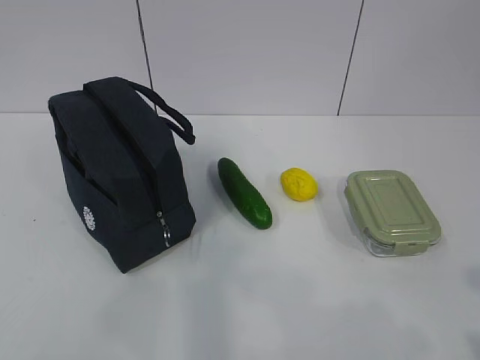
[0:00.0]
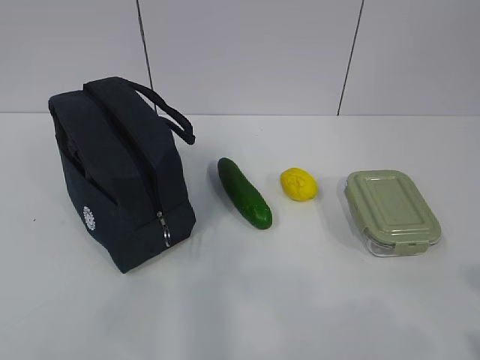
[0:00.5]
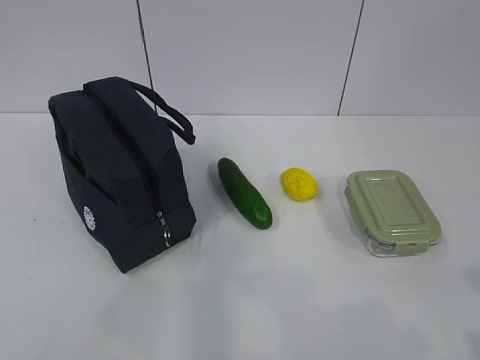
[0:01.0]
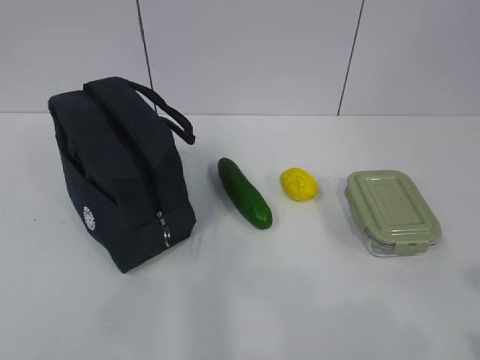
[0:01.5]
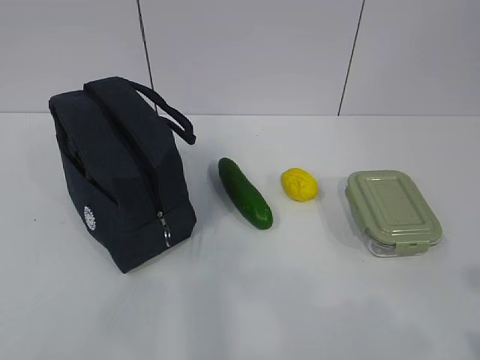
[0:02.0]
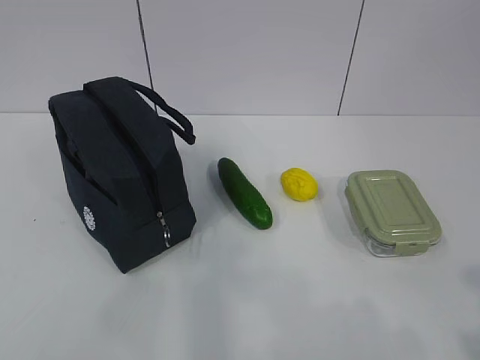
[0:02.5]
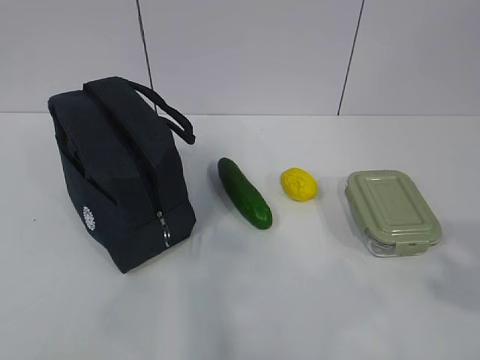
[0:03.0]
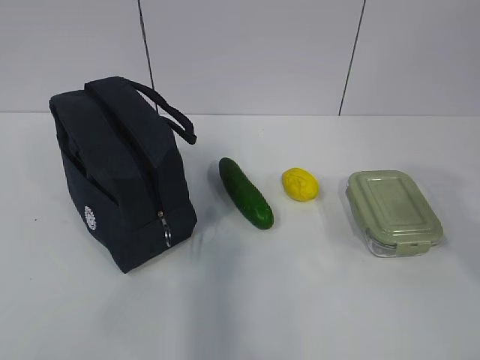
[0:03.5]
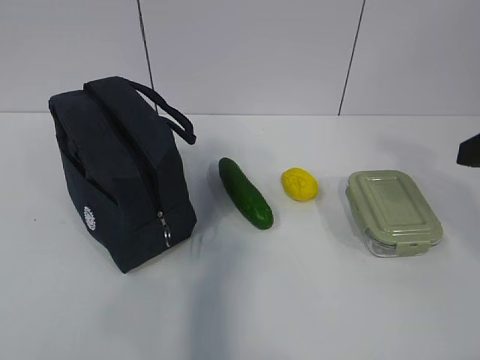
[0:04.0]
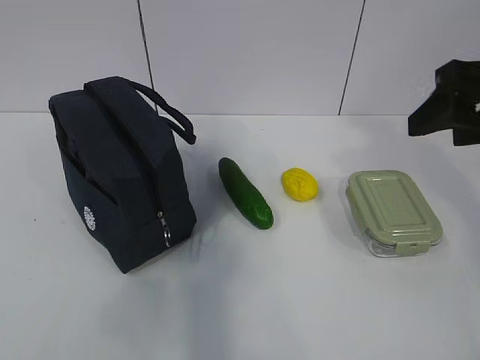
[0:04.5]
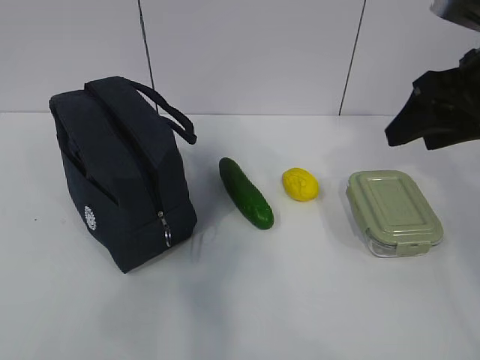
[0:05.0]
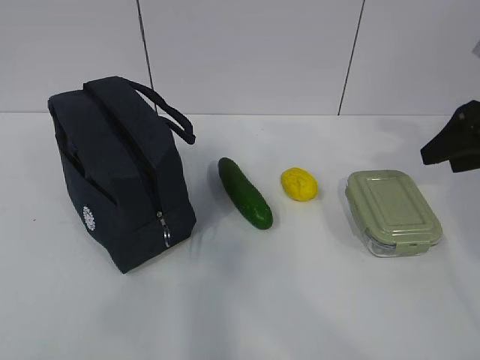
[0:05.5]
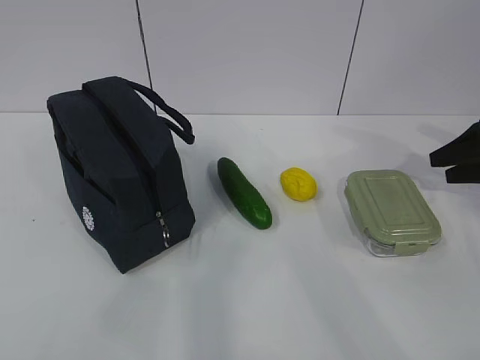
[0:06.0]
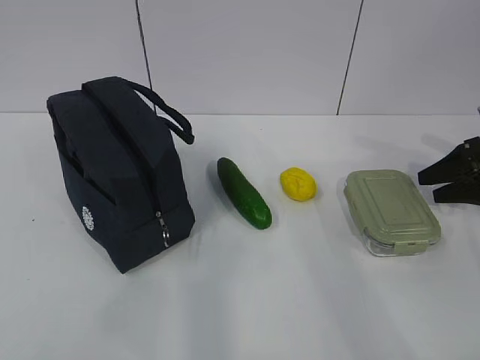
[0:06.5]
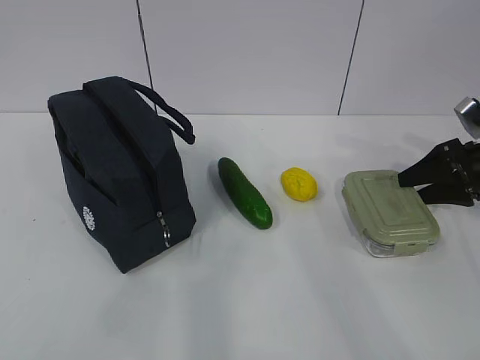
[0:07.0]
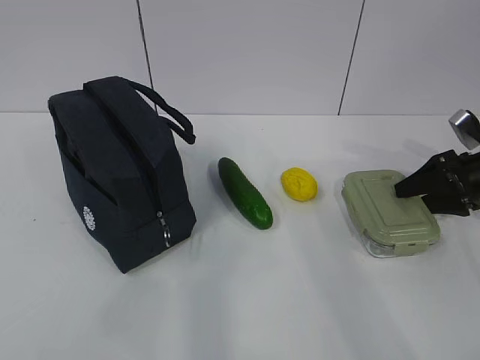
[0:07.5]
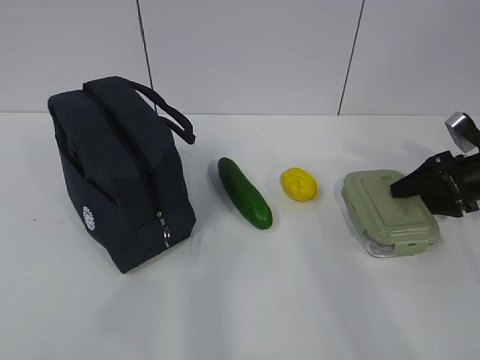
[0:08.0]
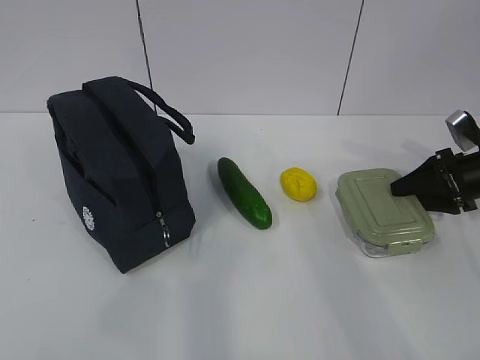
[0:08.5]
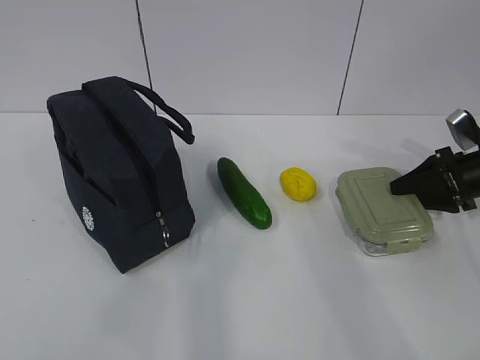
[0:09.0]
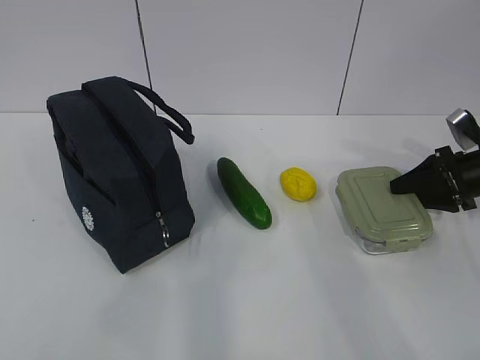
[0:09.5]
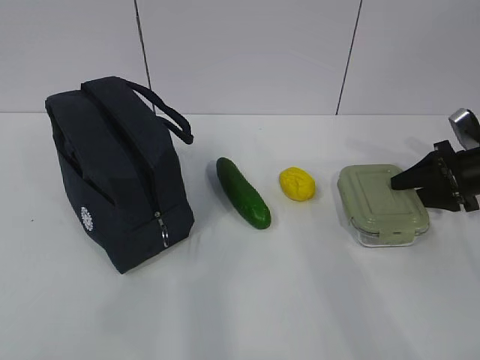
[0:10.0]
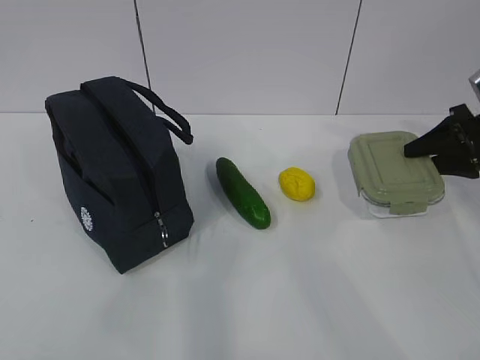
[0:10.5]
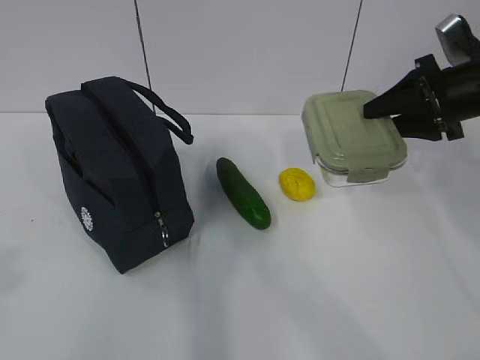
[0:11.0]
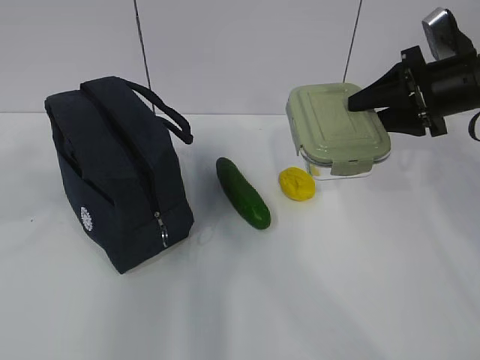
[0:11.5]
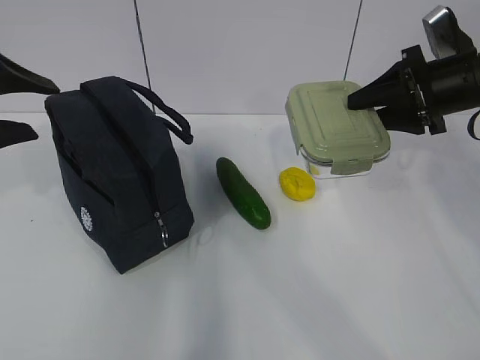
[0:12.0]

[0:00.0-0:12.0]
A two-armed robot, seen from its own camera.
Step, 0:00.0 to 0:08.0: Grab the lunch box with your right hand.
0:02.0 to 0:04.0: The right gripper is displaced forward by about 20 cm, and opens up.
0:04.0 to 0:06.0: The right gripper shifts some 25 cm forward, to the right and downward.
0:06.0 to 0:08.0: The right gripper travels downward by some 5 cm.
0:08.0 to 0:10.0: The grippers stay close to where they were, moving slightly.
0:10.0 to 0:12.0: The left gripper moves forward, about 25 cm, while the right gripper is displaced upward and to the left by roughly 15 cm.

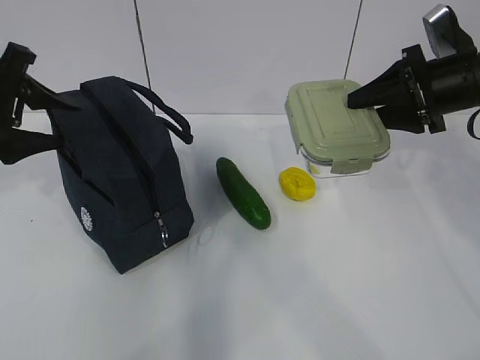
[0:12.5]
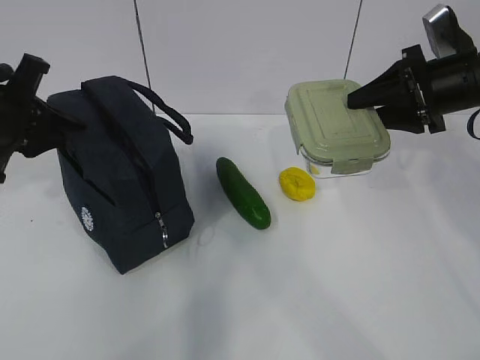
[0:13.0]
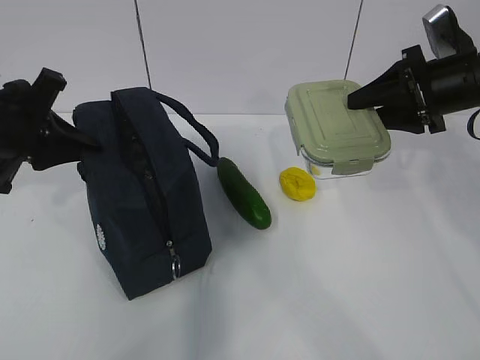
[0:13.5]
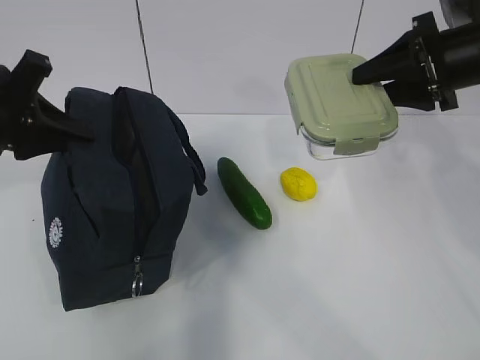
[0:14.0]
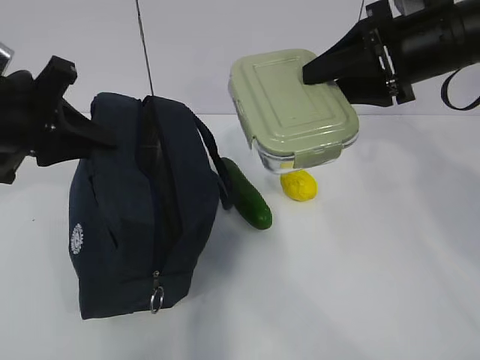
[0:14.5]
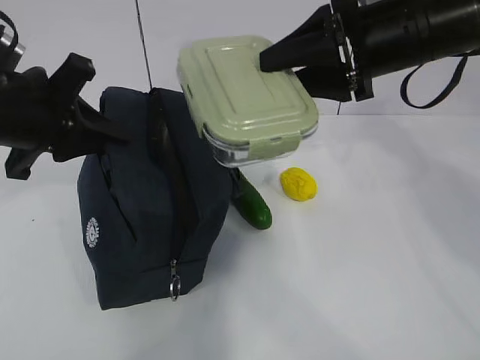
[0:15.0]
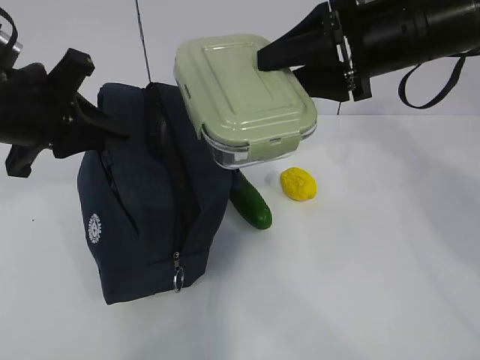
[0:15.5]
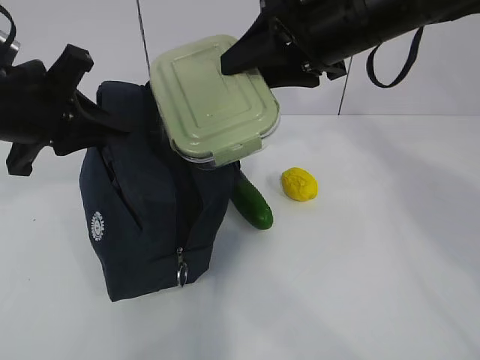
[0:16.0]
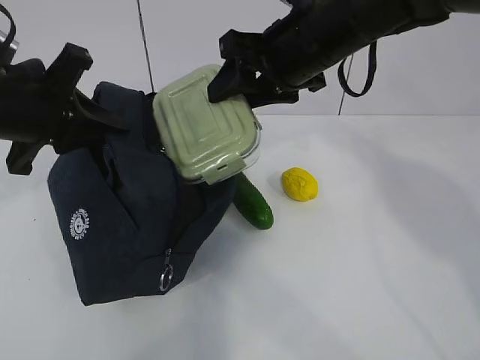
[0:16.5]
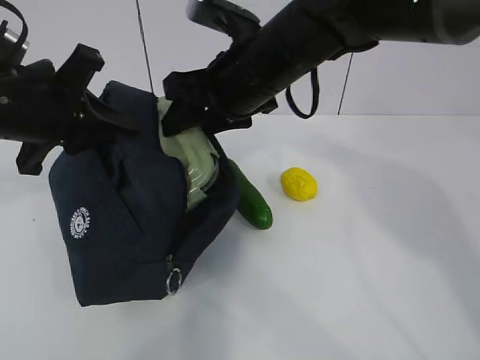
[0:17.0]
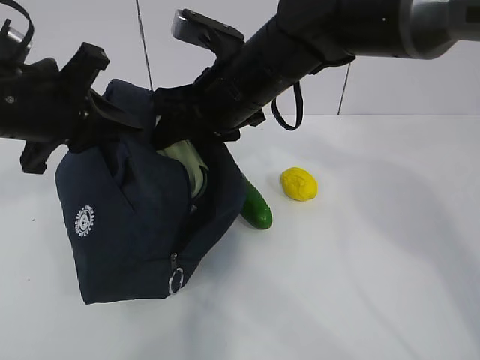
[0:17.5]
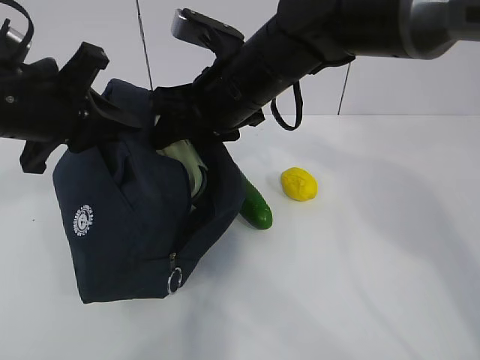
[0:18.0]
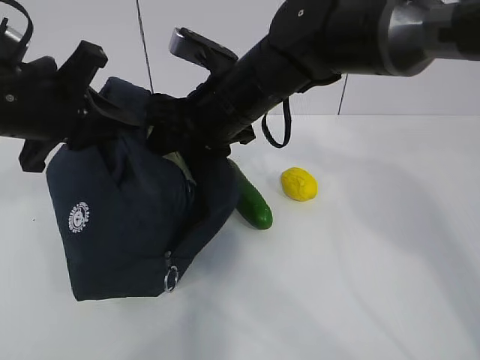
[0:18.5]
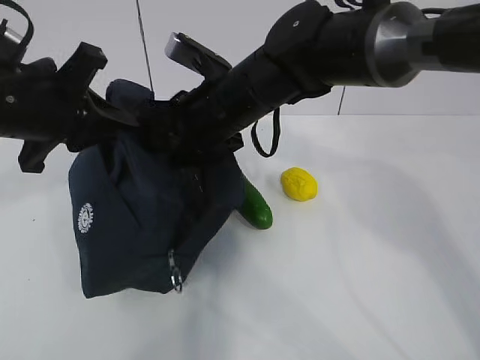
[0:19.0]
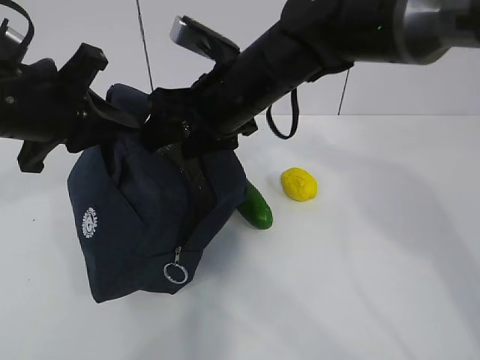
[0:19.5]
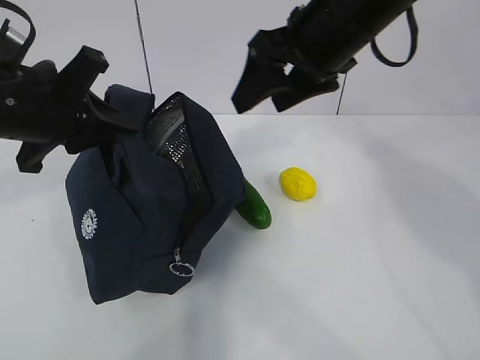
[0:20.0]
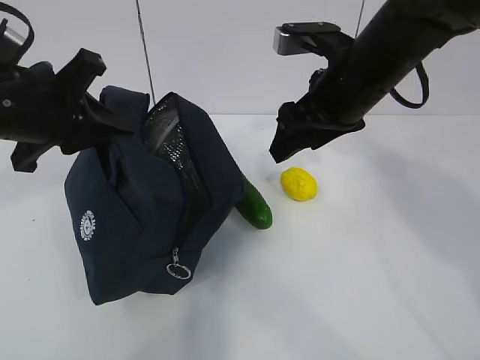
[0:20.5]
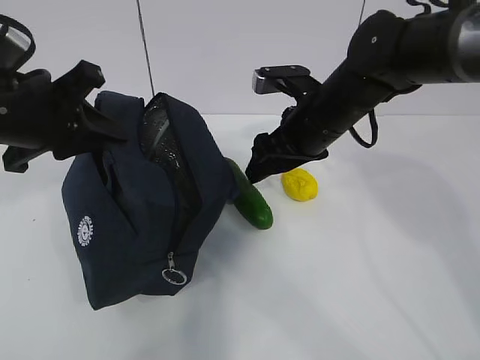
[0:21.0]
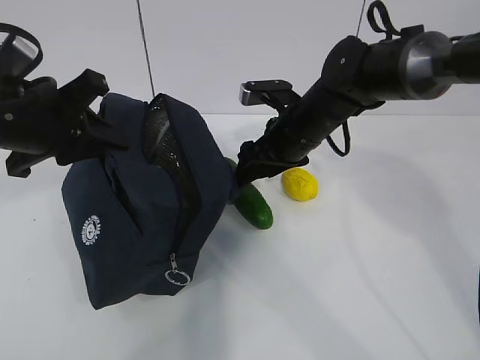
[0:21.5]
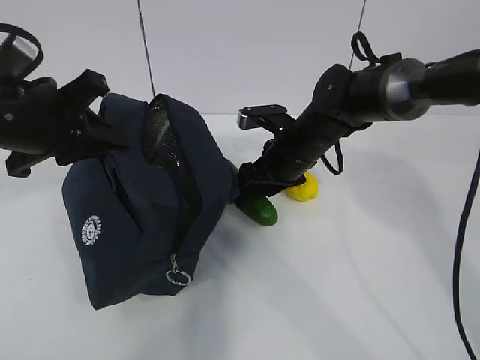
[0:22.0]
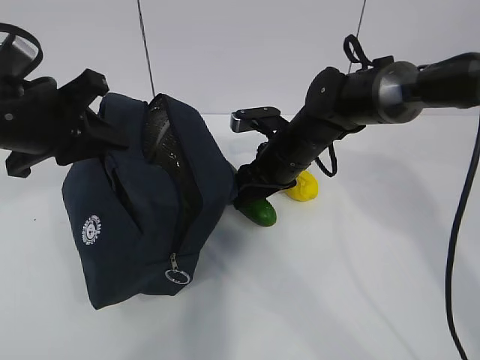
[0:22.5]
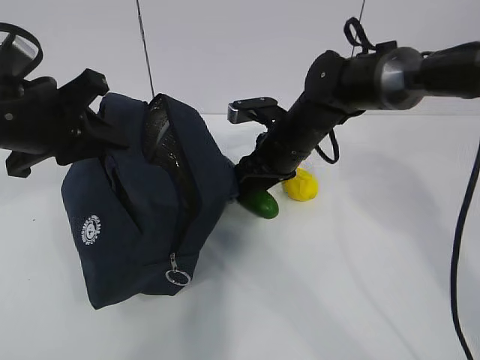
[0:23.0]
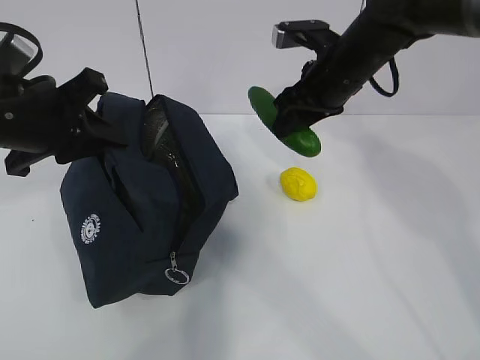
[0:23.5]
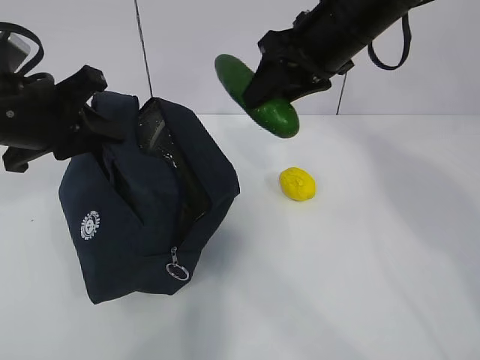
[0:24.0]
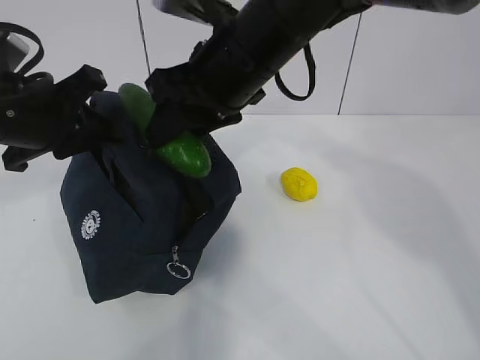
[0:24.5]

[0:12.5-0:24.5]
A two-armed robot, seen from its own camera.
Step, 0:14.0 to 0:16.0: Place it into the bag with your right hand.
Step, 0:16.5 to 0:18.5: Grab the cucumber with your right hand.
Step, 0:19.5 to 0:21.0: Place it into the bag with your right hand.
Step, 0:21.5 to 0:23.5: Grab the lemon with your right hand.
0:12.5 to 0:14.5: The left gripper ends up approximately 5 cm from where it was, and closes its fingers. Meanwhile the right gripper heads to the left and upward, covering about 10 cm.
0:14.5 to 0:16.5: The right gripper moves to the left, about 10 cm.
0:16.5 to 0:18.5: The right gripper shifts roughly 10 cm to the left and downward.
0:18.5 to 0:20.5: The right gripper travels to the right by approximately 10 cm.
0:20.5 to 0:22.5: The right gripper is displaced downward and forward by roughly 15 cm.
0:22.5 to 0:24.5: The right gripper shifts some 20 cm upward and backward.

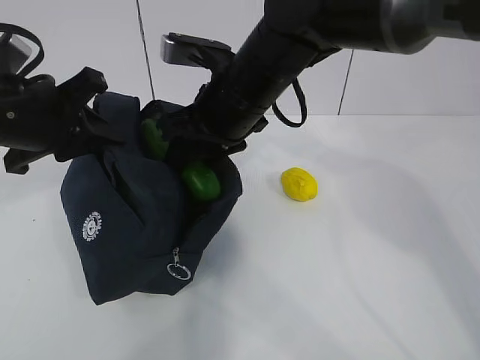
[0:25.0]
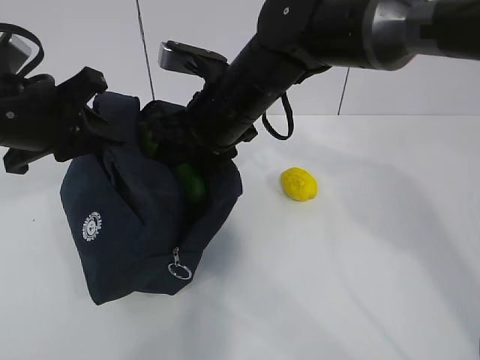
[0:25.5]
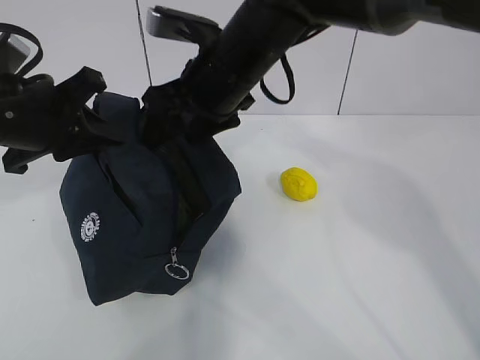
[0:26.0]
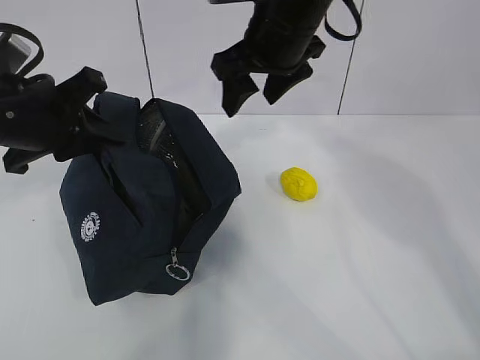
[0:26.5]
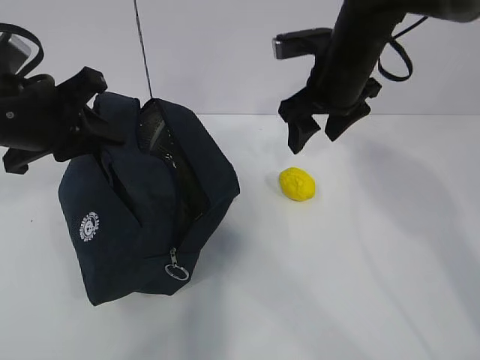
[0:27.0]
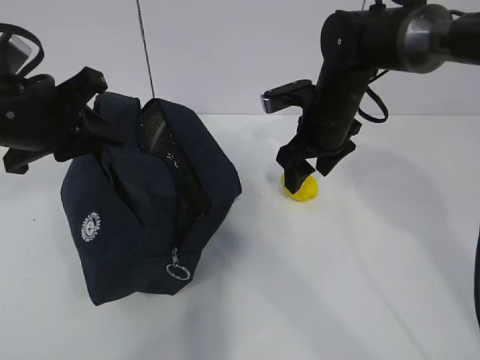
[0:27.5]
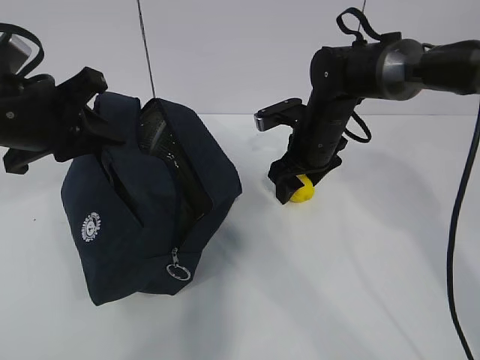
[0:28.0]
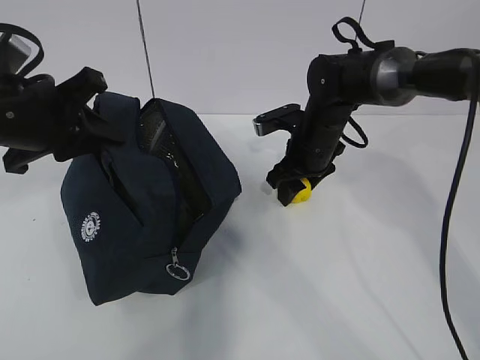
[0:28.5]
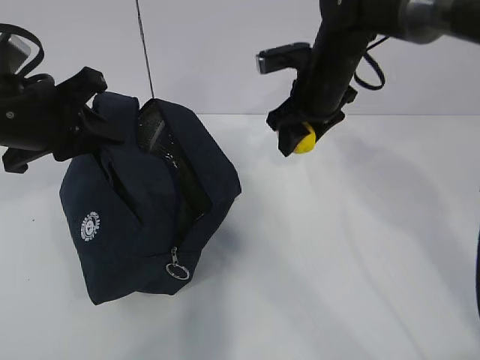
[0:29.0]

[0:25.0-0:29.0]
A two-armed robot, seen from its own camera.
Step, 0:25.5 to 0:26.5: Grab the lunch bag with your right hand.
0:25.0 to 0:27.0: The right gripper goes about 15 cm to the right and forward, and opens its fingers.
0:27.0 to 0:29.0: The right gripper travels downward and back again, about 10 cm each way.
